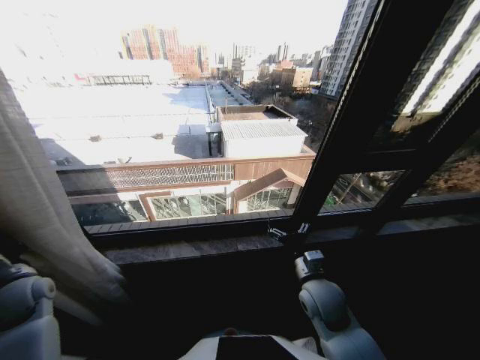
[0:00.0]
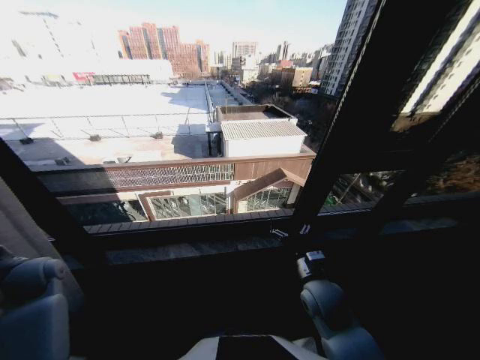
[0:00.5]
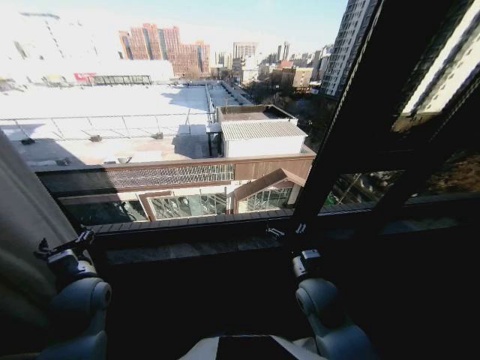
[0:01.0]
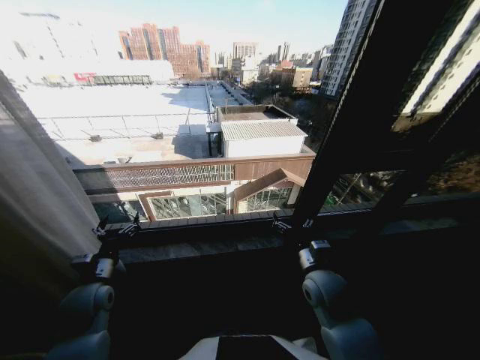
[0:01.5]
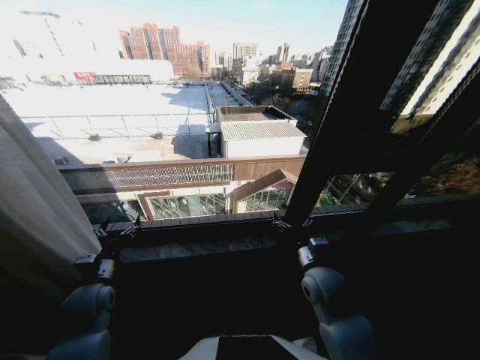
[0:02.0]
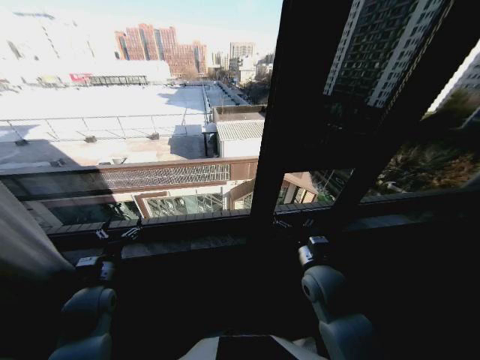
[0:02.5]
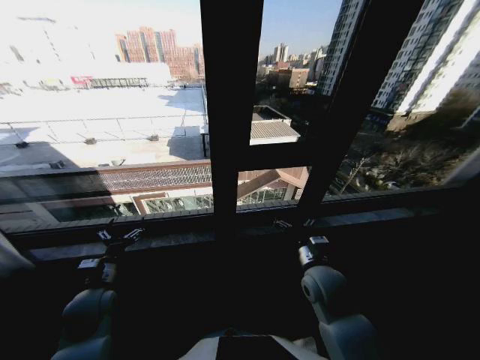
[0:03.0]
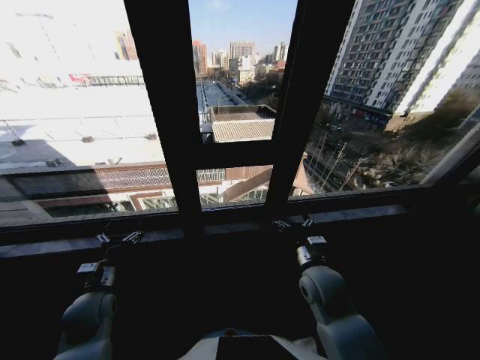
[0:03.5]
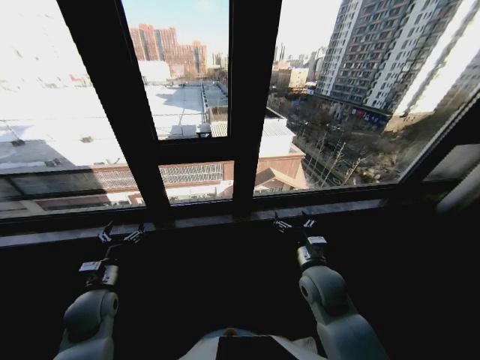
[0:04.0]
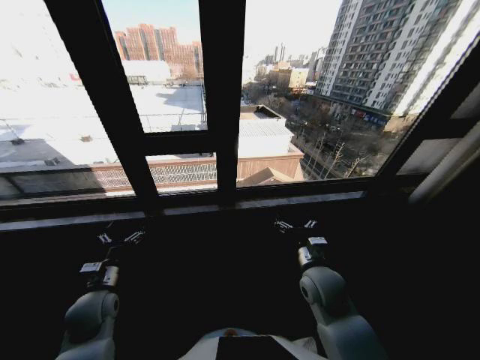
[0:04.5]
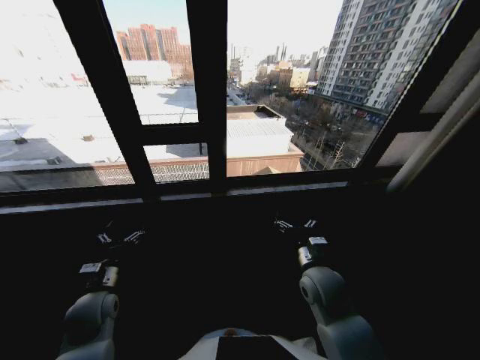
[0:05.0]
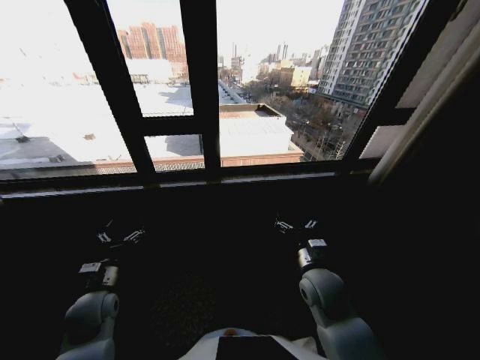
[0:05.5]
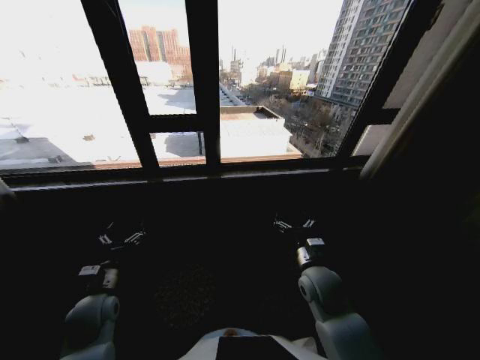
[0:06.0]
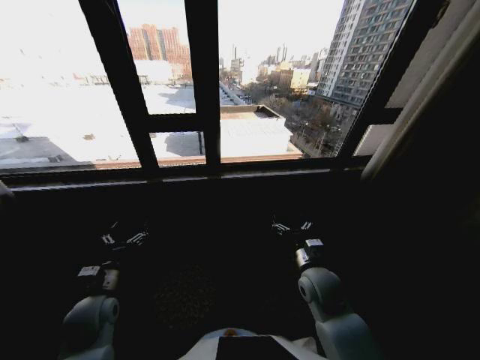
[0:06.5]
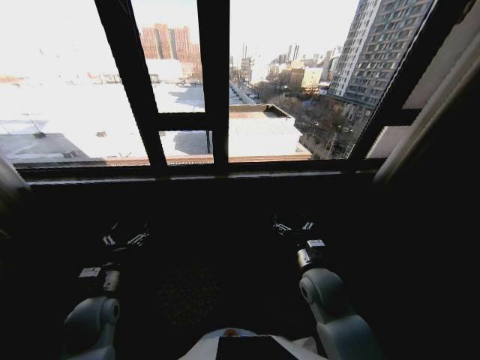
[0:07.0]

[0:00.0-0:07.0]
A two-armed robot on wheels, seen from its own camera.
Task of the whole recording: Open the curtains by pulling them apart, changing their state from closed to fully open.
0:00.0 to 0:02.0: The left gripper goes roughly 15 cm to the right, and opens.
